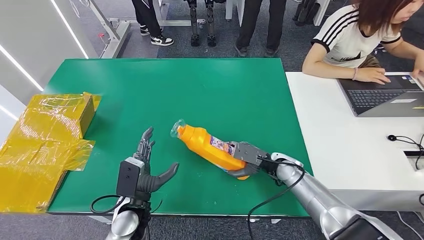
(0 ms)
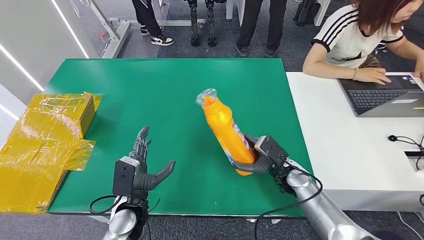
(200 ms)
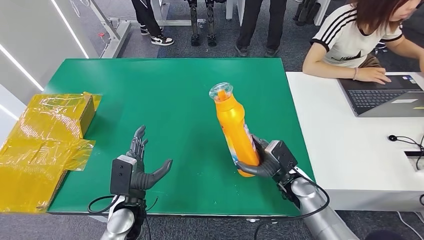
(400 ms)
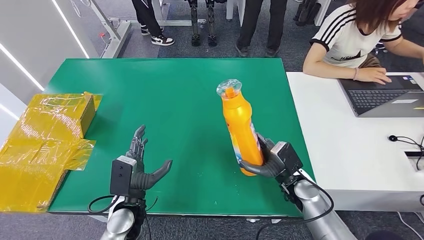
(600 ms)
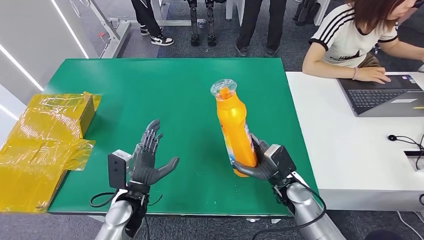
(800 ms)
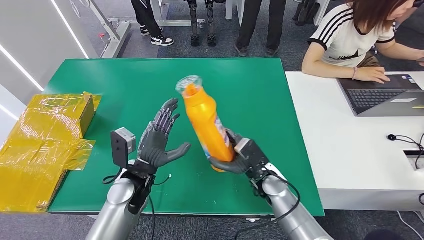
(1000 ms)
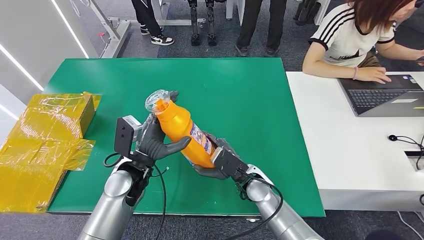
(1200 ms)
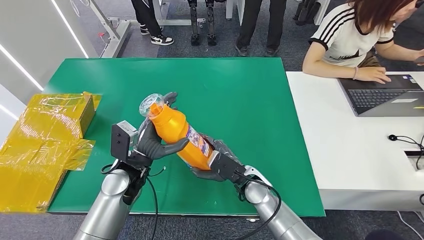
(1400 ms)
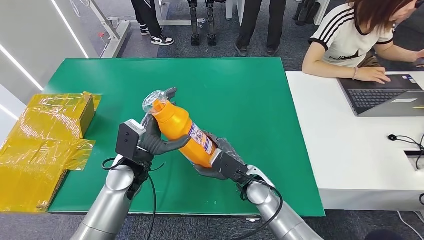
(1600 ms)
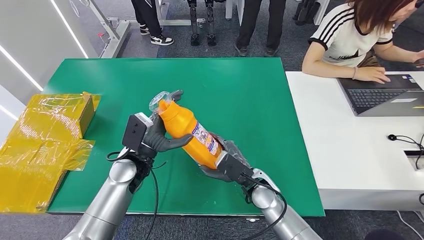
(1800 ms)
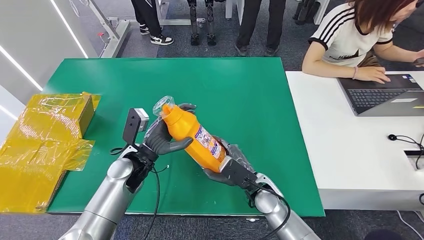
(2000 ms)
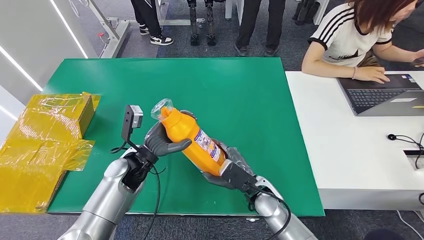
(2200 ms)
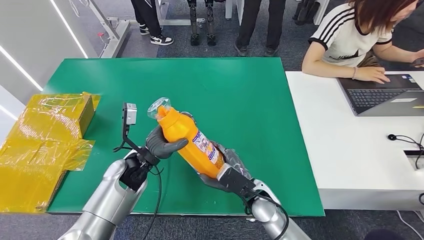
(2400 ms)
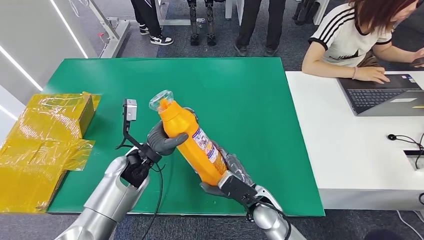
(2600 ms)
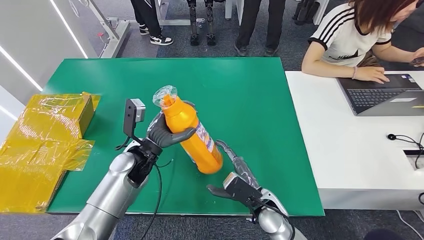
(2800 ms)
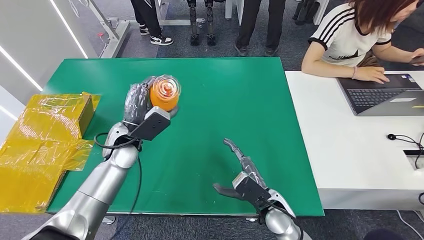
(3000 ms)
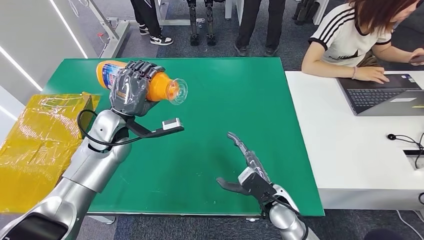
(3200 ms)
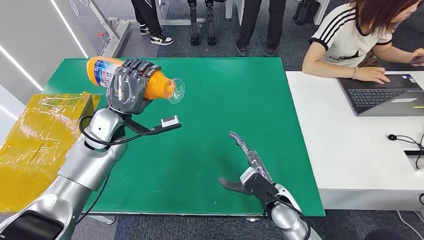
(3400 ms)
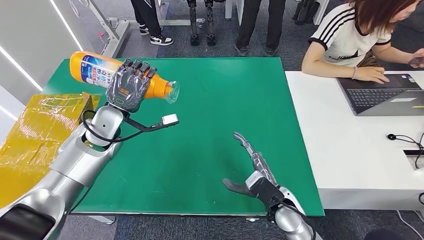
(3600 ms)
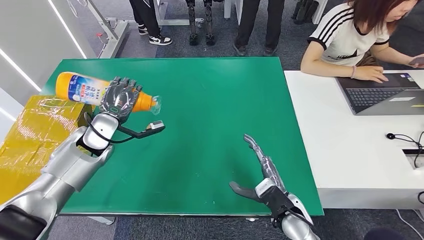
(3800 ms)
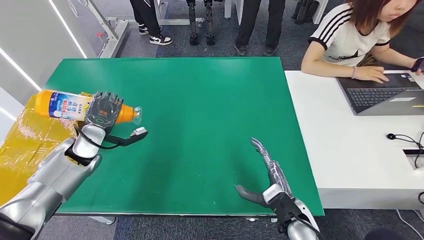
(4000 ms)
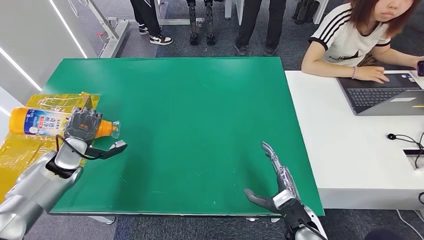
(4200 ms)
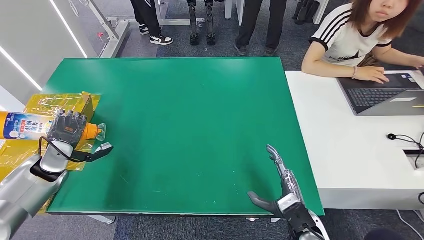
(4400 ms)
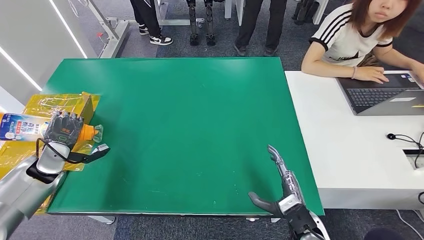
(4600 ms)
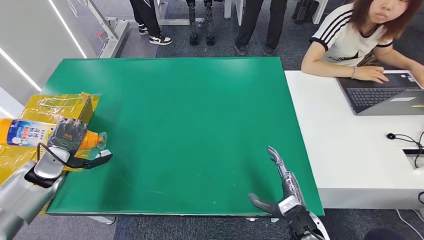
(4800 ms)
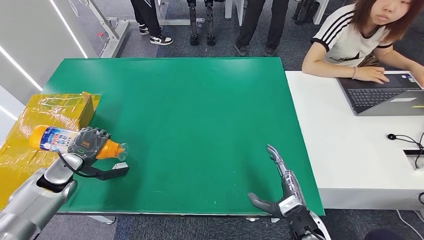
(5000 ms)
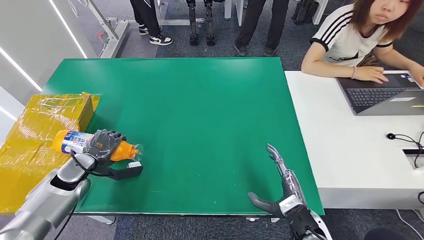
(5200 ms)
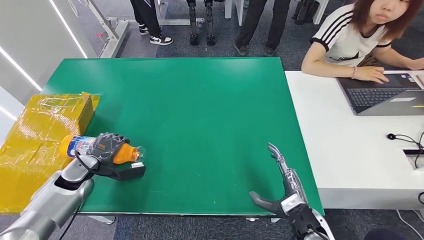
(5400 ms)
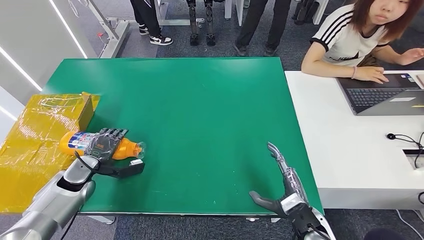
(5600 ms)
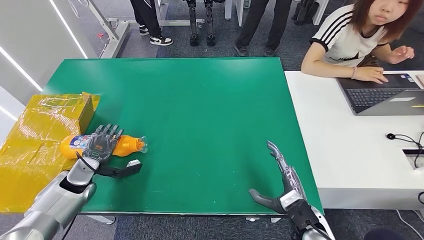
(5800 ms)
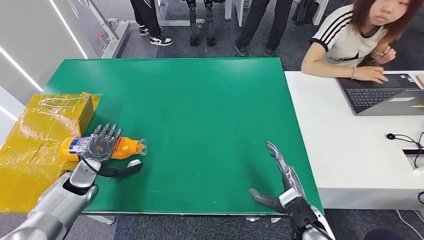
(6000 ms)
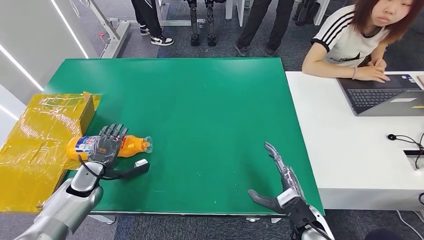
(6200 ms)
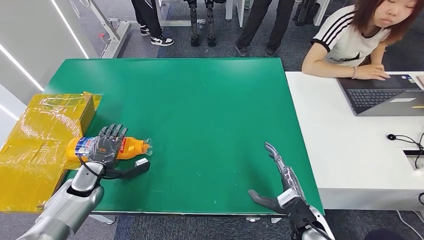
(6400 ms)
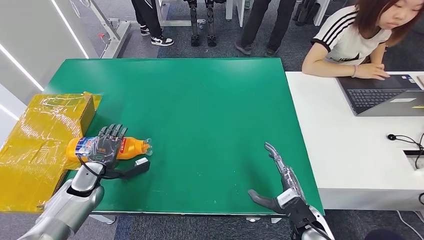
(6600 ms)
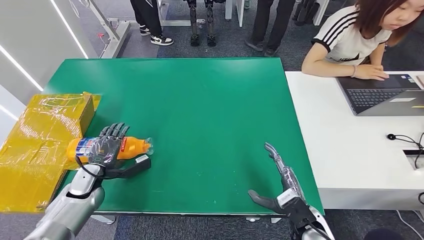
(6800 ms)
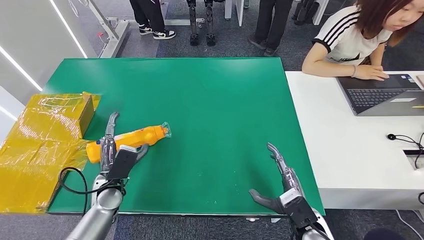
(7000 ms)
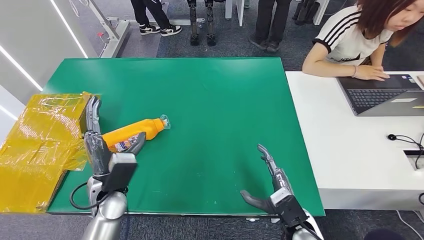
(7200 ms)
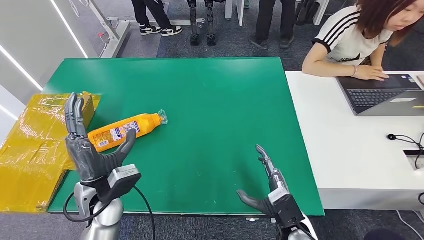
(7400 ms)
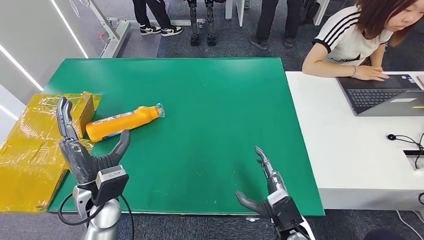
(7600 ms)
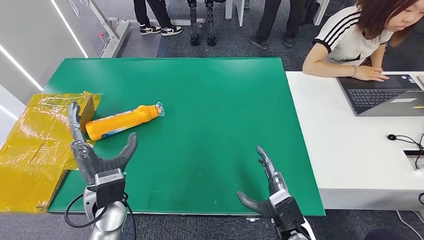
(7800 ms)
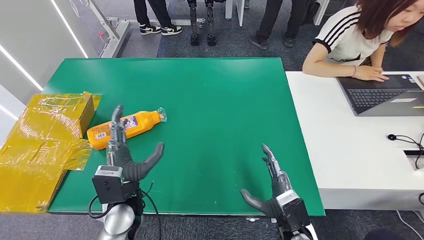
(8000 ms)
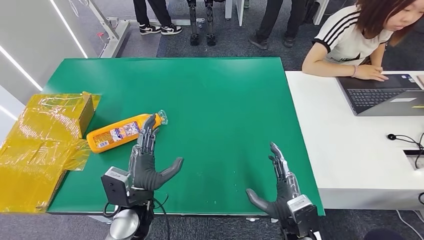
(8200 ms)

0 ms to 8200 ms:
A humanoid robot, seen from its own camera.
Step, 1000 ms to 8200 ms: Turn the bottle to the front side.
0 ms to 1600 ms: The right hand heads to the left and backward, covering some 15 cm; the left hand goes approximately 10 cm forward and upward.
5000 ms to 6600 ms: The left hand is displaced to the right by some 5 cm.
6600 ms to 8200 ms: The left hand heads to the right and backward, covering about 20 cm.
